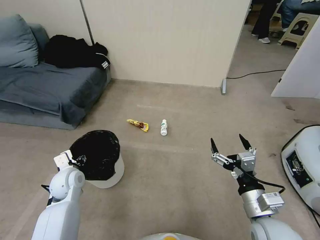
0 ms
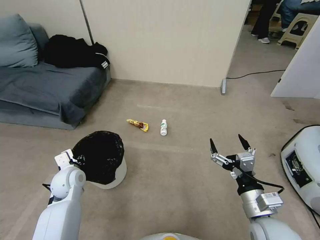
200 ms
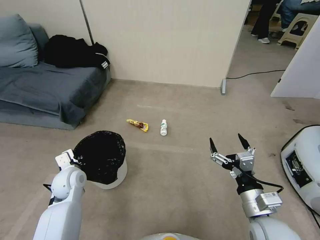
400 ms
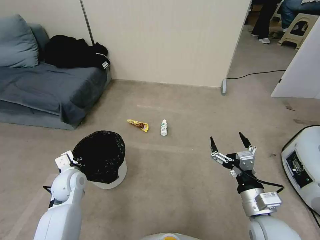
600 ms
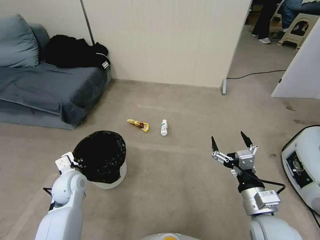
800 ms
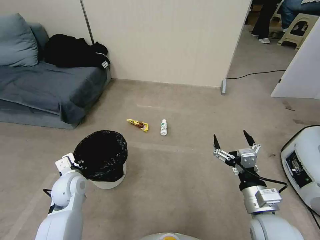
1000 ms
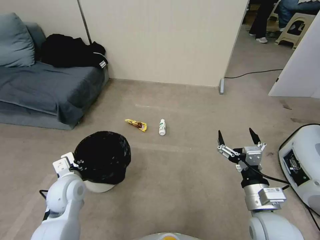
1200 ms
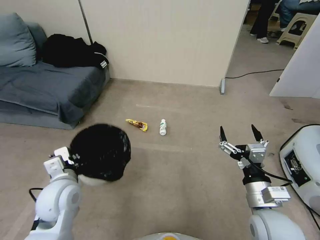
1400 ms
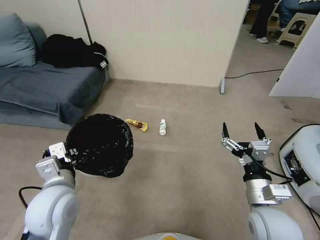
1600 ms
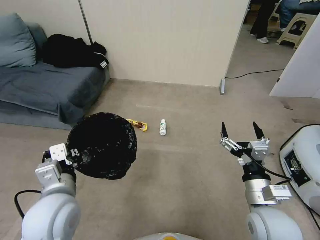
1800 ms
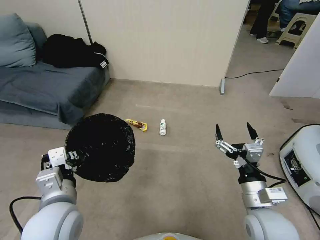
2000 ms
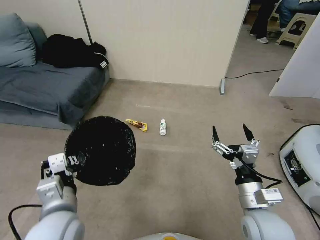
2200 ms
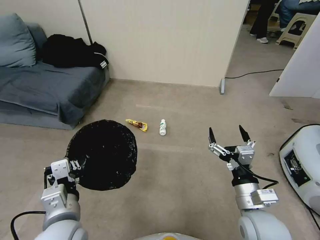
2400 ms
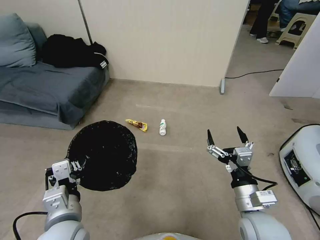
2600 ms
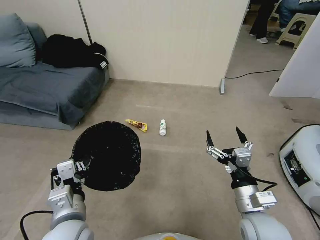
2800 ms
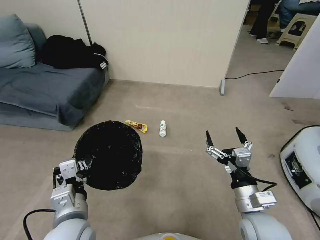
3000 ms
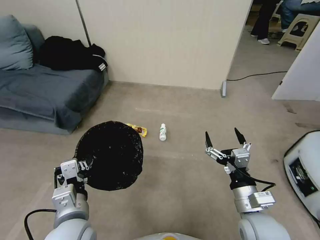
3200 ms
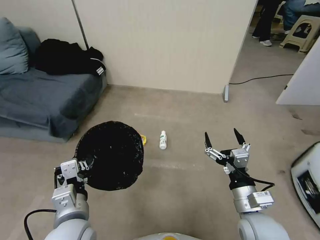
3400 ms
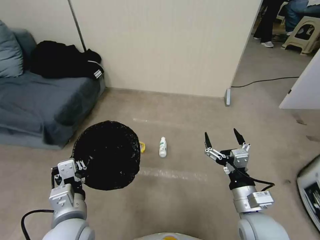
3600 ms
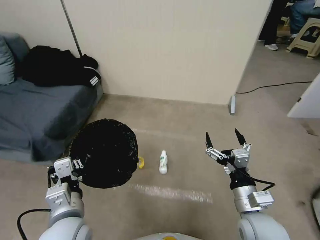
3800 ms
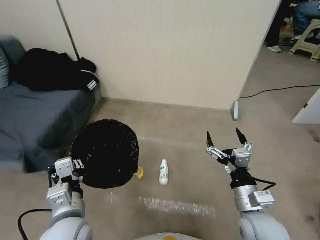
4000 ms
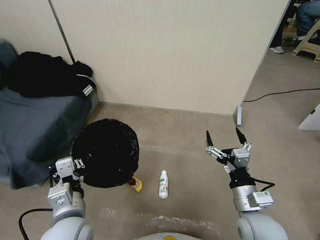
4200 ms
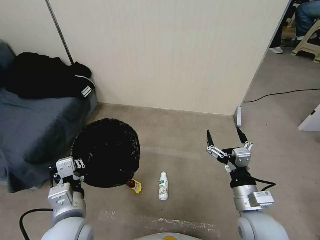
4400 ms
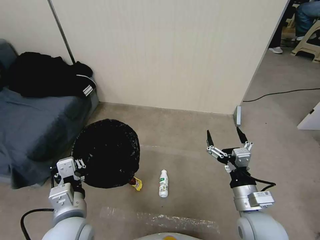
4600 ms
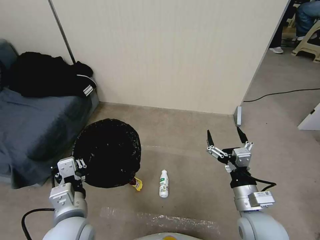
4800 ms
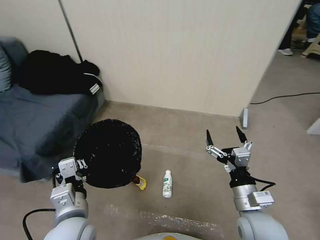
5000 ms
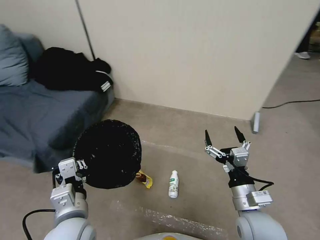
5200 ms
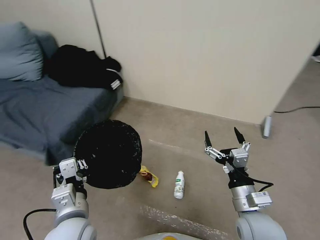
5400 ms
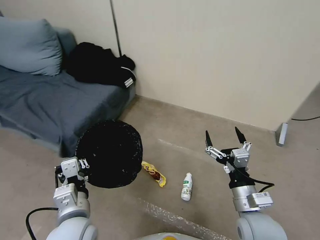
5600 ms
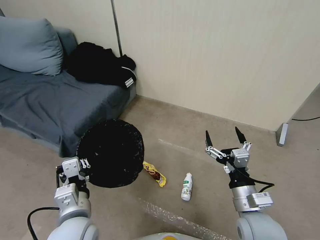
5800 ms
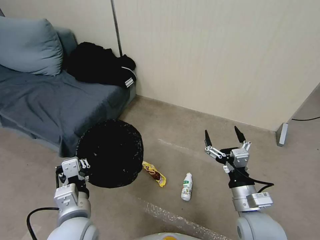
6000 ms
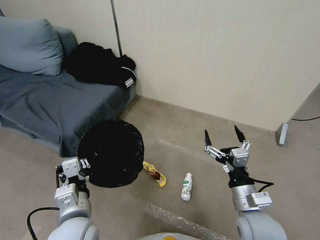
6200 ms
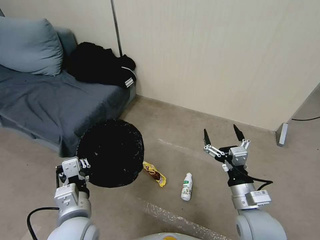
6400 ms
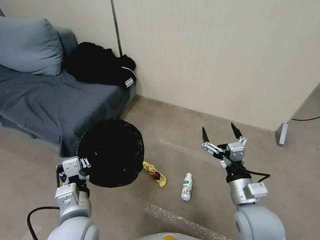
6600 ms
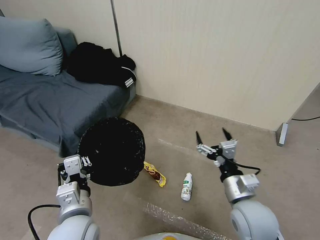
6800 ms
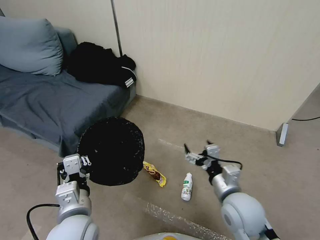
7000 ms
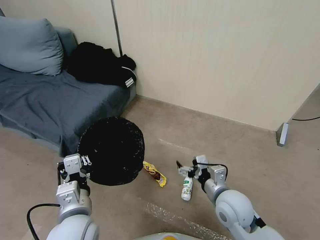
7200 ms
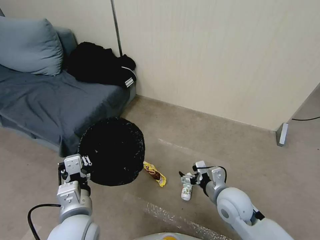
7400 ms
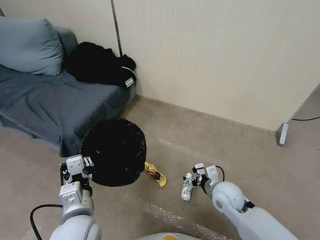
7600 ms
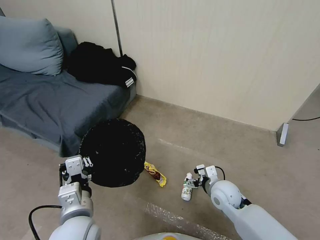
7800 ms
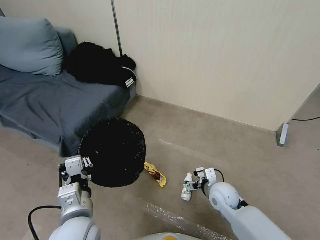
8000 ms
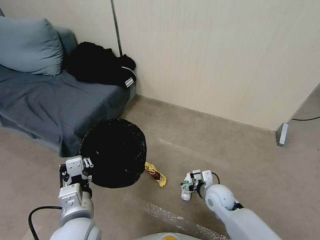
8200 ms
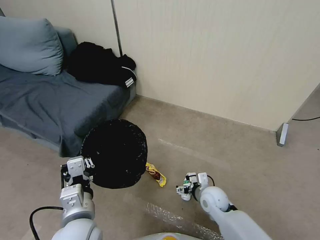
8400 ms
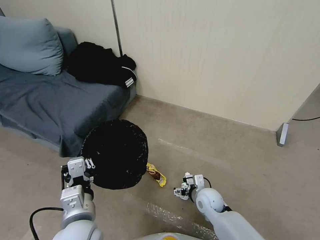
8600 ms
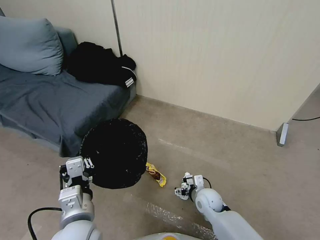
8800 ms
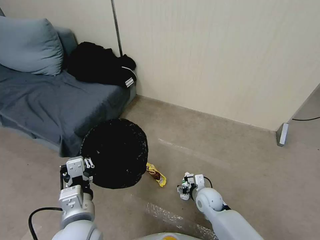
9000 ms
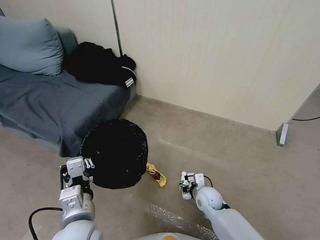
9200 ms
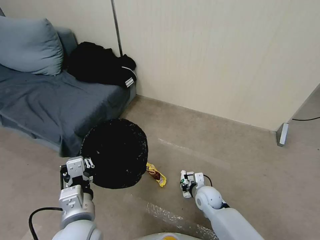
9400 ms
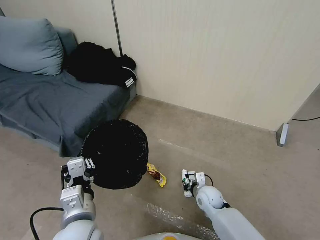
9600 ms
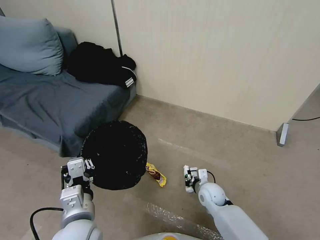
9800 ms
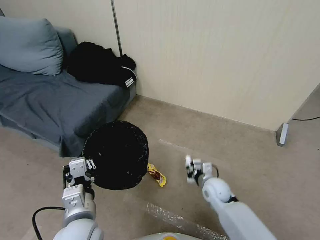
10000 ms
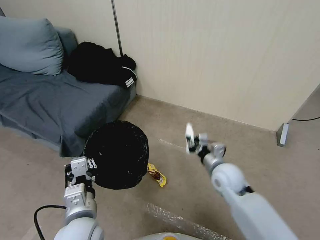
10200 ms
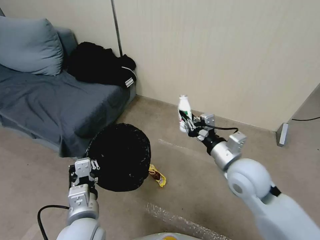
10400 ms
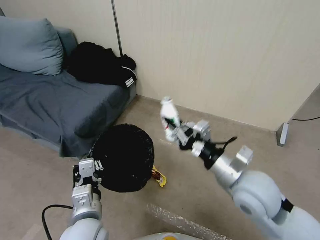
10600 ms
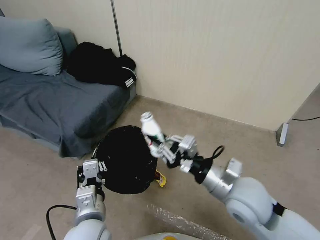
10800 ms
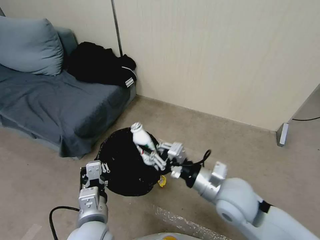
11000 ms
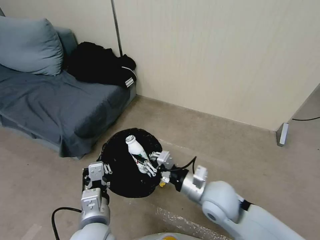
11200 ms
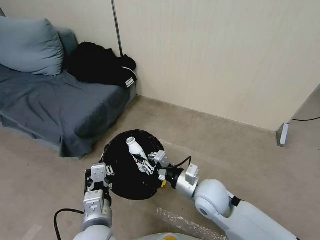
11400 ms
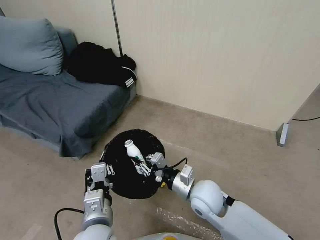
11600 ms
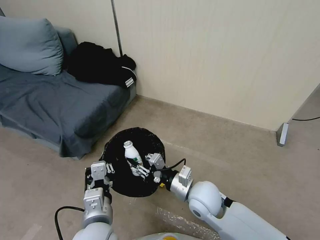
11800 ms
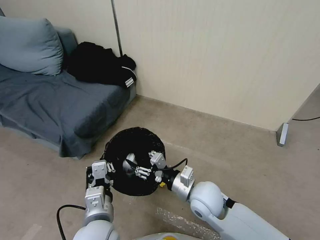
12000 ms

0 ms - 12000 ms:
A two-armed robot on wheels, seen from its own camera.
Task of the whole recording: Pick up the trash bin, then pick up the garbage from the floor and place it into the trash bin.
0 ms - 1600 ms: The left gripper travels upward, backward and to the right by about 20 cm, and closes.
1600 ms - 3000 ms: The left gripper shifts about 10 cm backward and to the right.
6000 ms - 7600 ms: The right gripper travels forward and downward by some 10 cm.
7600 ms - 9000 ms: The right gripper heads downward, covering approximately 10 cm.
9000 ms - 10400 ms: The right gripper shifts about 25 cm upward, and closes up.
10400 ms - 12000 ms: The right gripper moves downward and to the left, some 15 cm, and opens up.

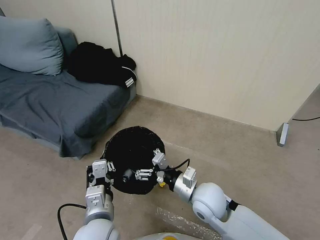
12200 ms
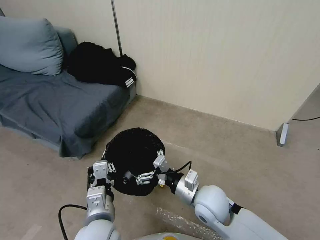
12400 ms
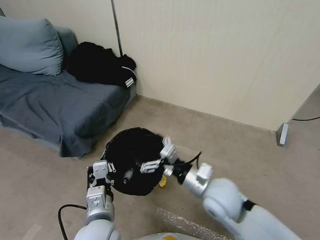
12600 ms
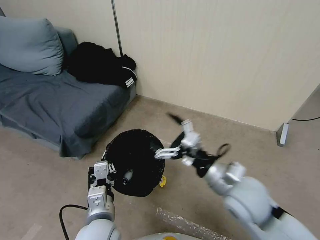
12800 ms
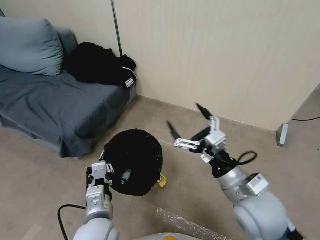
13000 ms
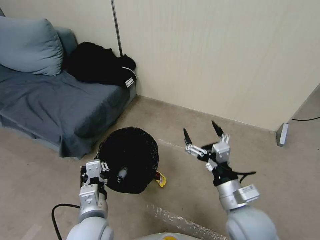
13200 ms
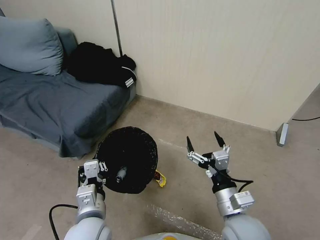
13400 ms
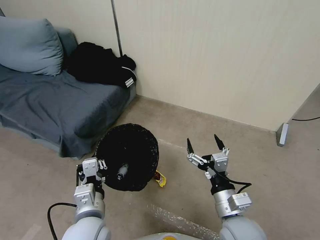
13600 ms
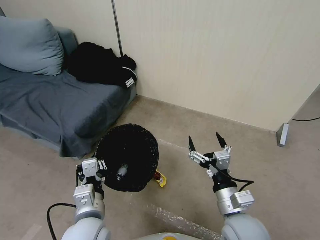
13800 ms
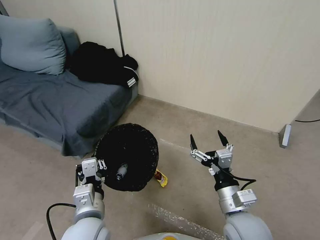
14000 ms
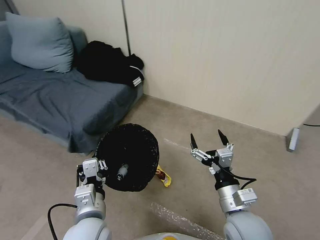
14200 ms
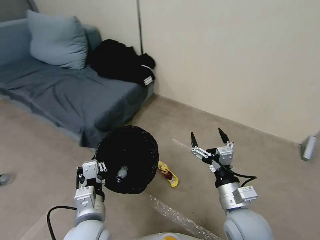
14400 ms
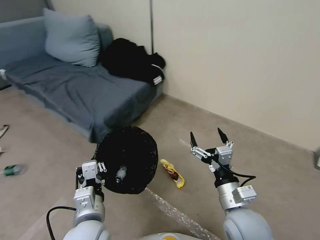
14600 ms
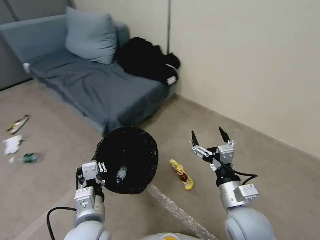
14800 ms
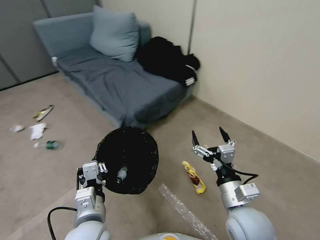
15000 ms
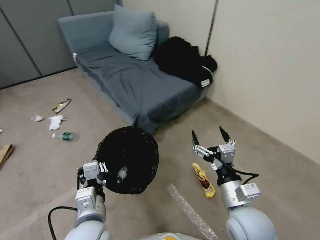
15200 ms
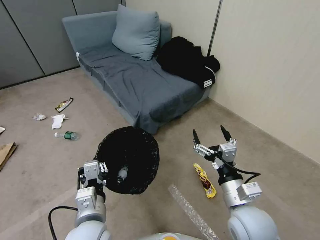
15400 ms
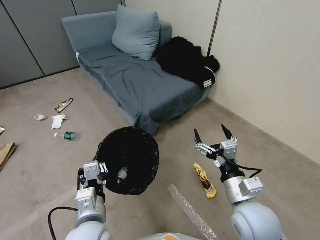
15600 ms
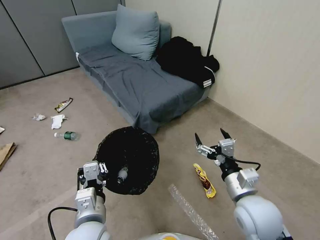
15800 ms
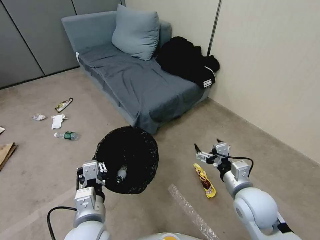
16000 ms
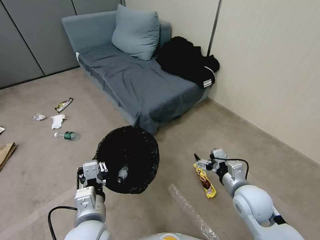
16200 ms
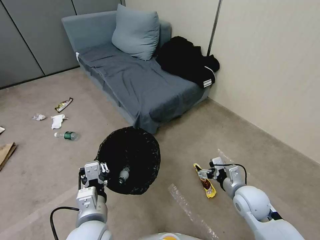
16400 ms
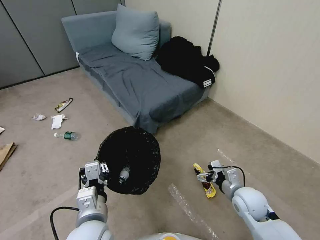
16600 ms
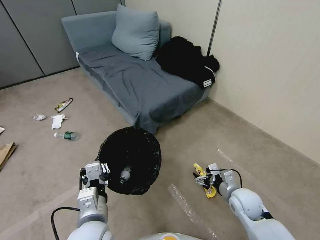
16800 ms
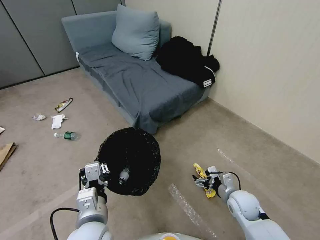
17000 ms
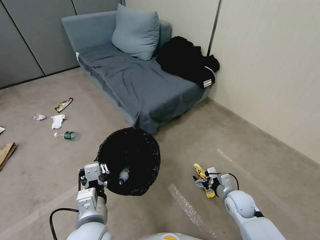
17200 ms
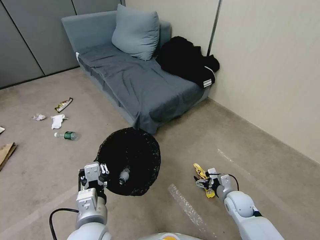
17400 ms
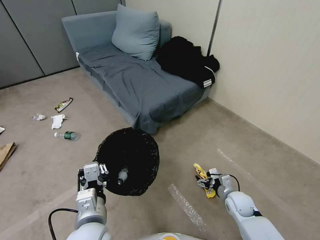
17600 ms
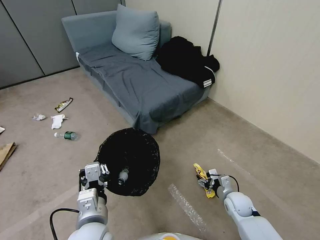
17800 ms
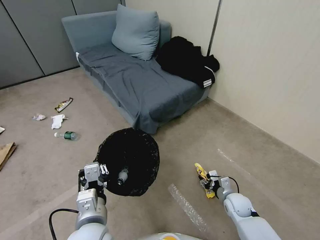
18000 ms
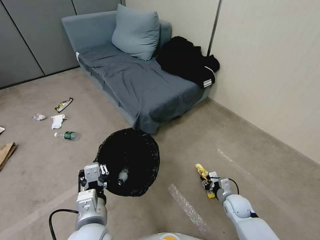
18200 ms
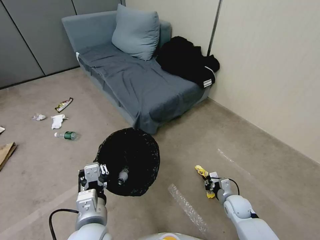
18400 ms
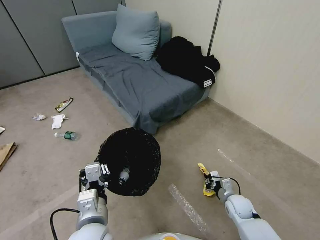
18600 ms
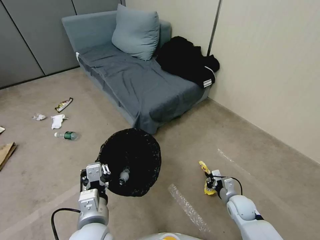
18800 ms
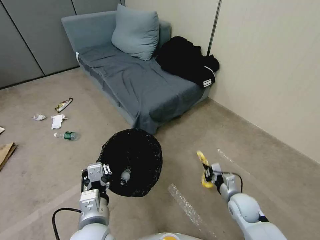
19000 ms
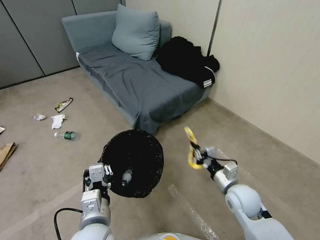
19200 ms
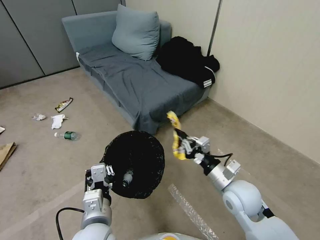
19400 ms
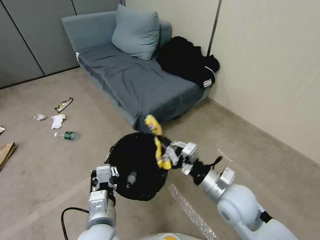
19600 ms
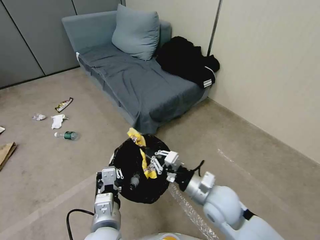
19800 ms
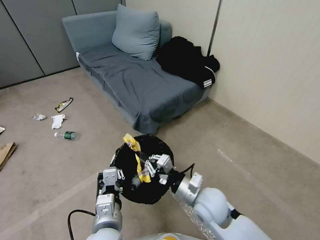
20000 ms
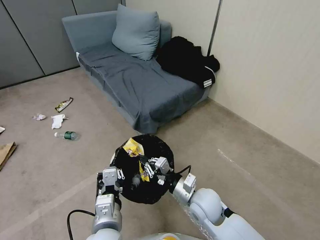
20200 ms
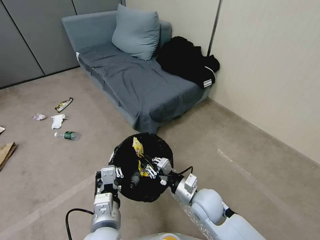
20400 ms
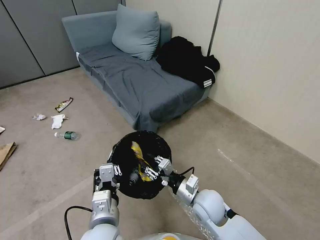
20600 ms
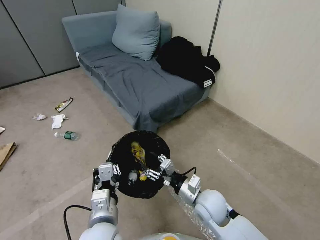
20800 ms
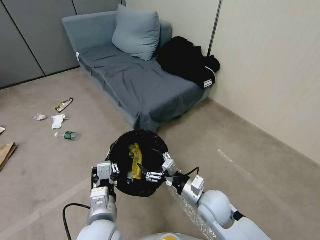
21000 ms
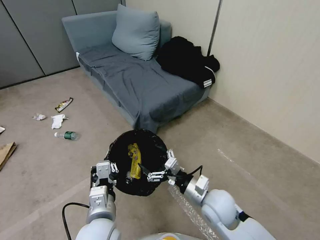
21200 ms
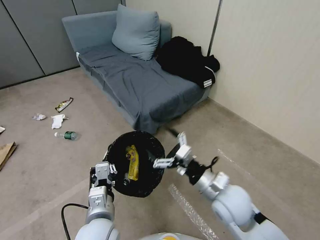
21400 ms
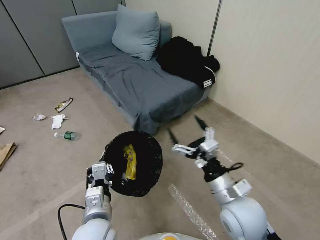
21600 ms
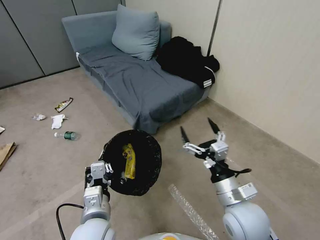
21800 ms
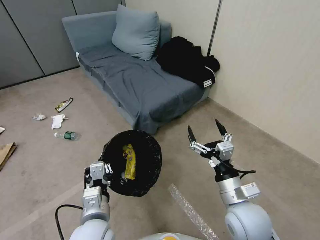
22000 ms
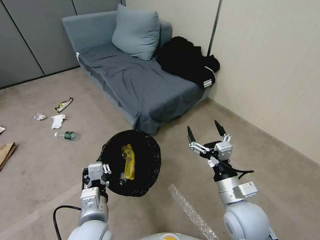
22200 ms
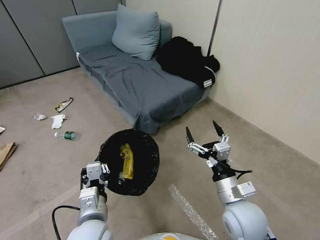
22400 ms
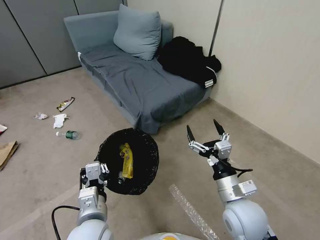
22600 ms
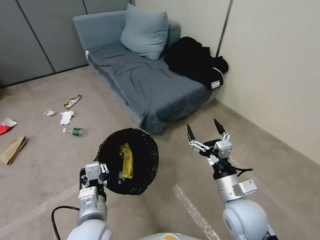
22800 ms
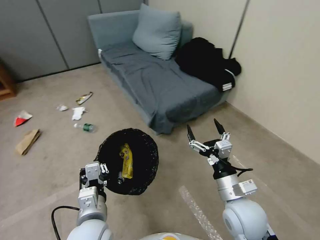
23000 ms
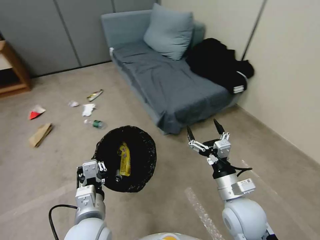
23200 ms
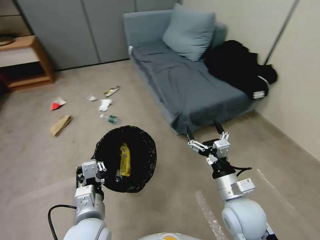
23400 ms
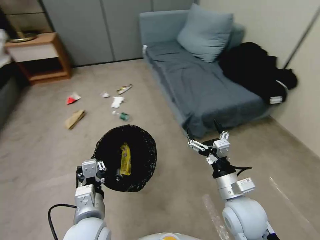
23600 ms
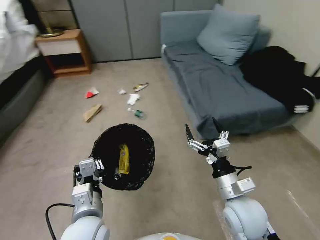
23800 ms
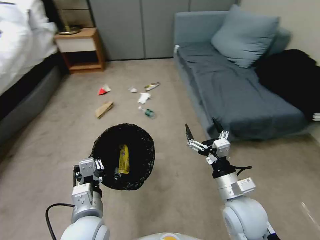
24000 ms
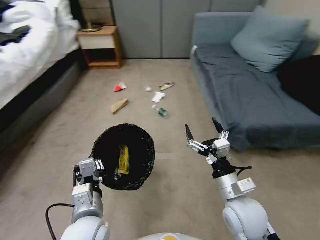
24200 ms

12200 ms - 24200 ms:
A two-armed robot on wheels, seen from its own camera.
Task of the whole recording: Pick up the trash bin, then pick up the garbage from the floor and place it into the trash bin.
12200 ms - 13800 ms: The right gripper goes approximately 10 cm backward and to the right, and goes upward and returns, some 10 cm each way.
15200 ms - 16600 ms: The right gripper heads downward, forward and to the right, covering about 15 cm.
16600 ms - 18200 ms: The right gripper heads downward, covering some 15 cm, and closes.
18200 ms - 19800 ms: The right gripper moves upward and to the left, roughly 25 cm.
19800 ms - 21200 ms: The right gripper opens.
21200 ms - 22600 ms: The right gripper changes place by about 5 cm.
